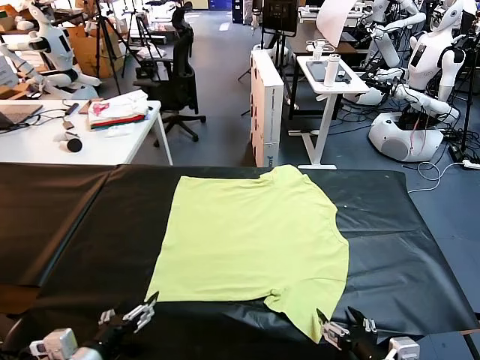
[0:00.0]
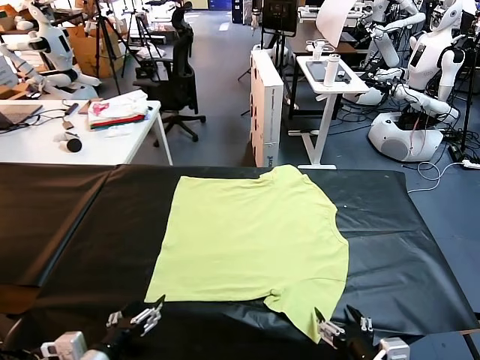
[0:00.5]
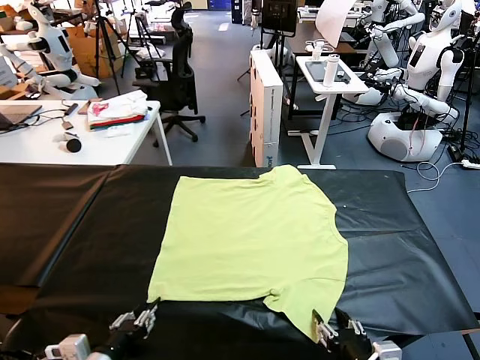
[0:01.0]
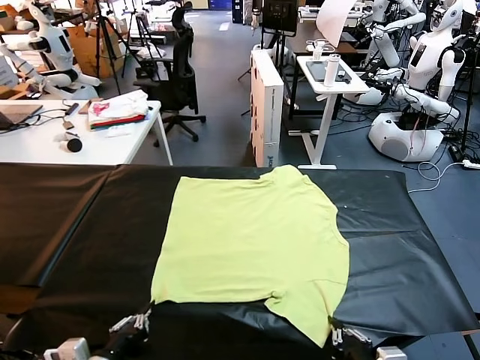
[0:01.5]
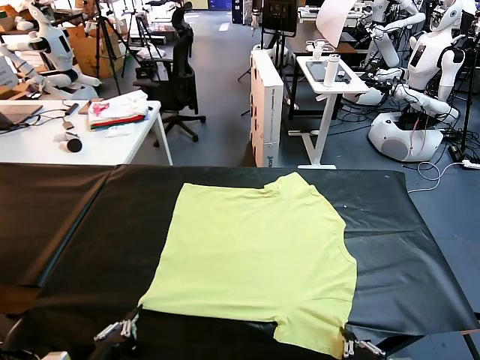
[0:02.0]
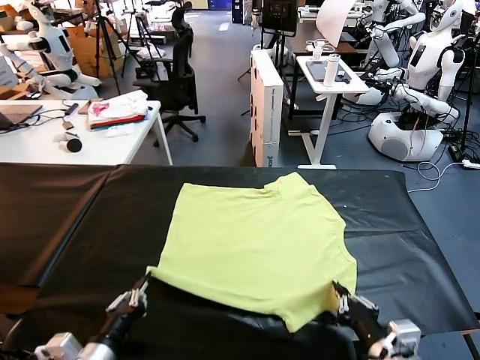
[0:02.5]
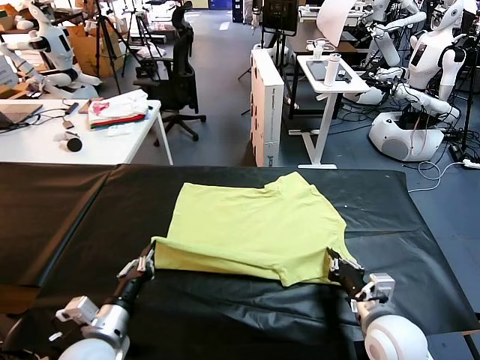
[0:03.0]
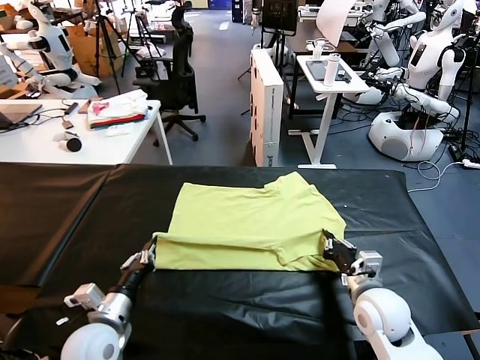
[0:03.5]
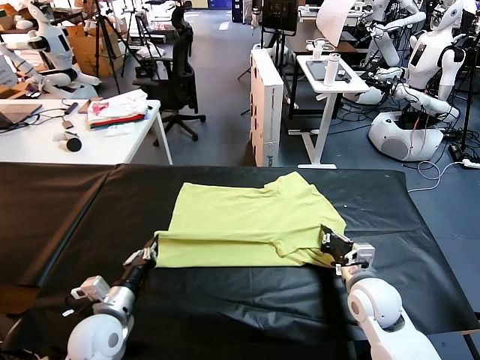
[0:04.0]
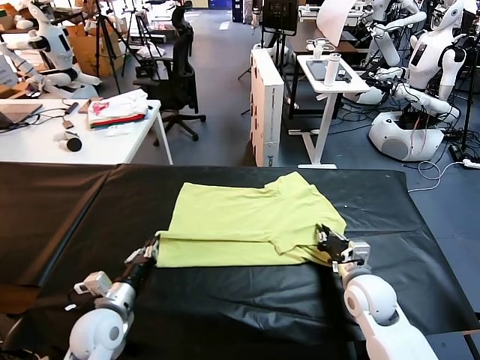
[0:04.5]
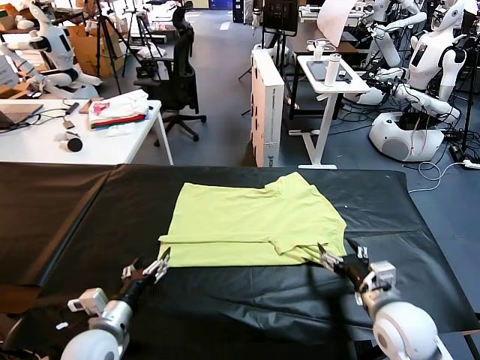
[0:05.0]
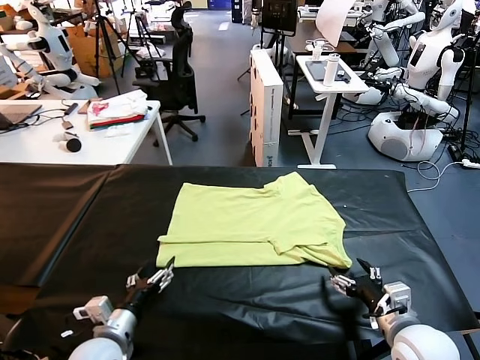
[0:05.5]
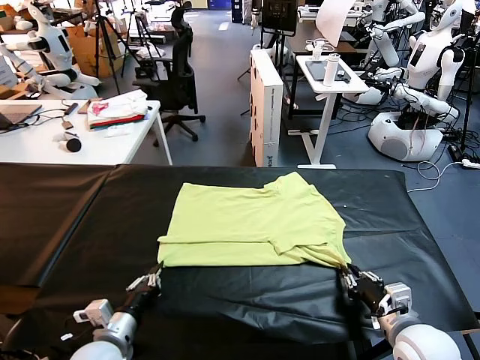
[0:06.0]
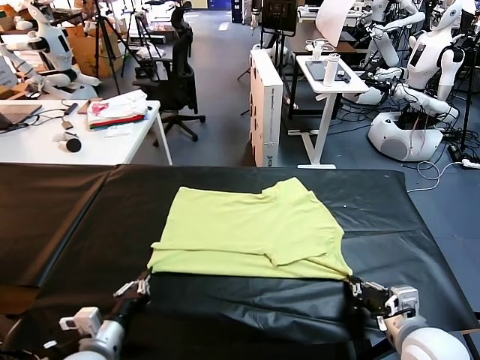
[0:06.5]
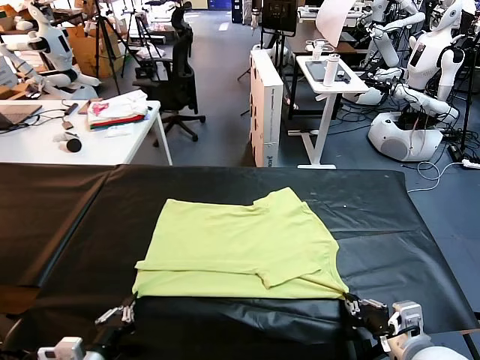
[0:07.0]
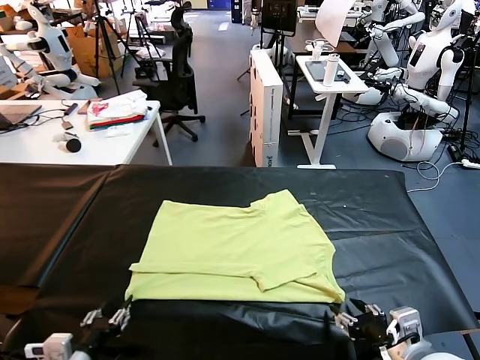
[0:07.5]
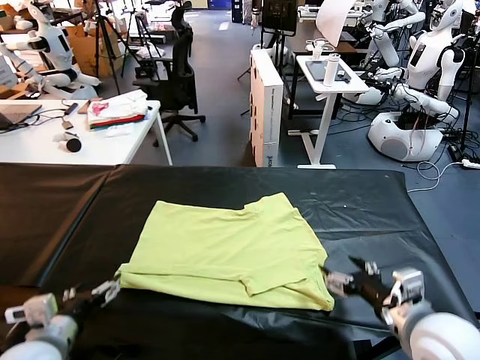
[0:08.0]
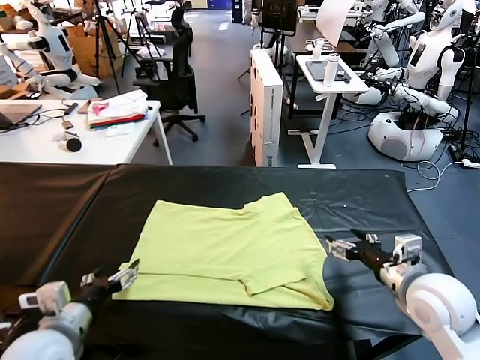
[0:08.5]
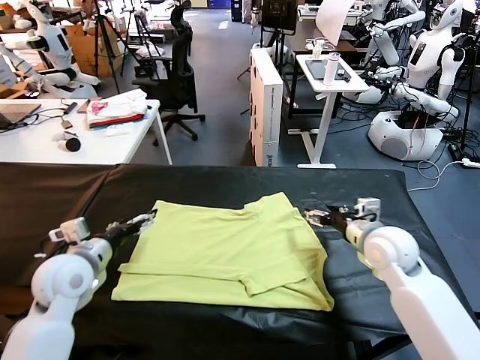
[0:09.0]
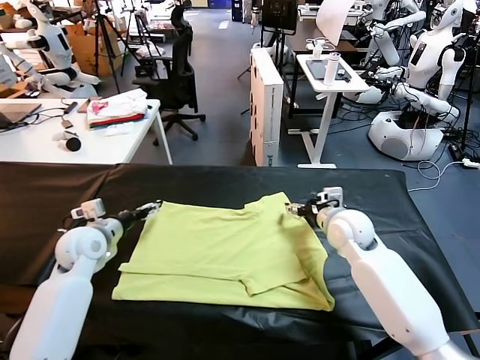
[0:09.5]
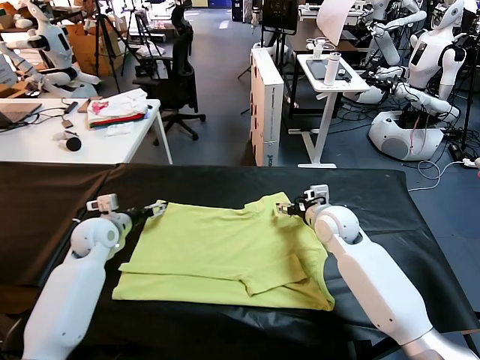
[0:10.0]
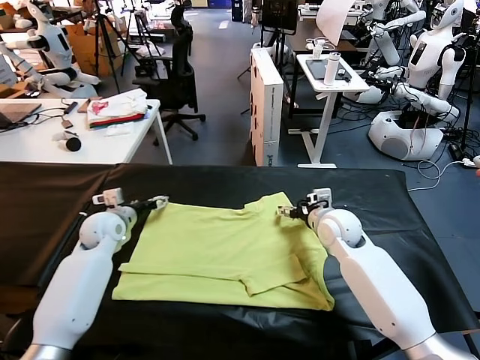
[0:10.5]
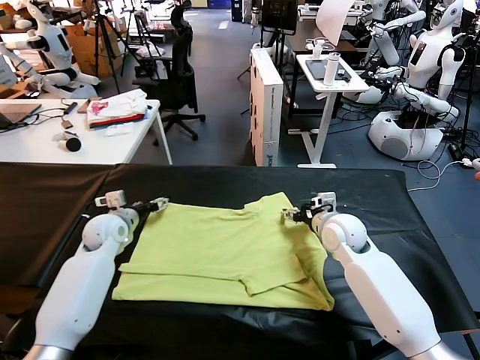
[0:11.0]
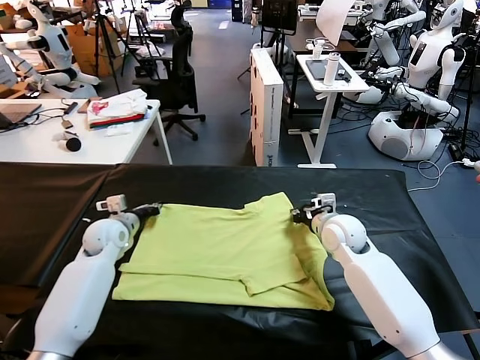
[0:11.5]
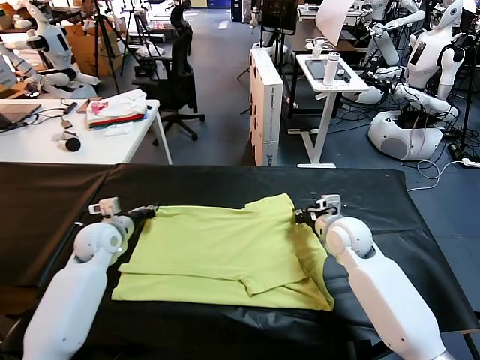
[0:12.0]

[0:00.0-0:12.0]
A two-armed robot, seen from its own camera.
Task of the whole recording: fold and organize the clothes.
Step, 0:00.0 to 0:01.5: use both grippers simultaneously to clamp the lower edge of the clothing fabric.
Step, 0:02.0 to 0:04.5: use both grippers to drag the lower edge of the fabric forward and fold it over the upper edge.
Step, 0:05.0 to 0:07.5: Drag the clothes downward with both gripper.
0:02.0 to 0:04.0: The right gripper is displaced forward by about 20 cm. Meanwhile the left gripper travels forward and downward by some 15 cm.
0:04.0 to 0:06.0: The right gripper shifts some 15 cm backward and to the right, and opens, then closes again; the left gripper heads backward, covering about 5 cm, and opens and closes again.
0:06.0 to 0:08.0: The right gripper goes approximately 10 cm upward, and opens up. The left gripper heads upward and to the left, covering roughly 10 cm, and opens up.
0:08.0 to 0:10.0: The left gripper travels forward by approximately 25 cm. Meanwhile the right gripper moves forward and to the left, approximately 25 cm.
0:10.0 to 0:12.0: The right gripper closes up; the left gripper closes.

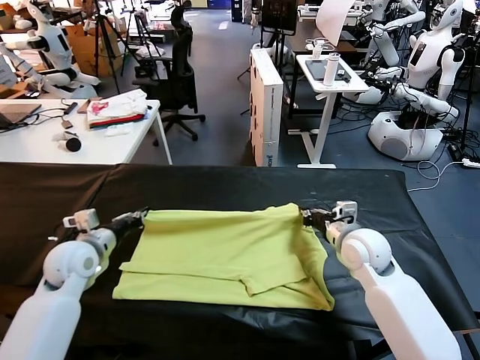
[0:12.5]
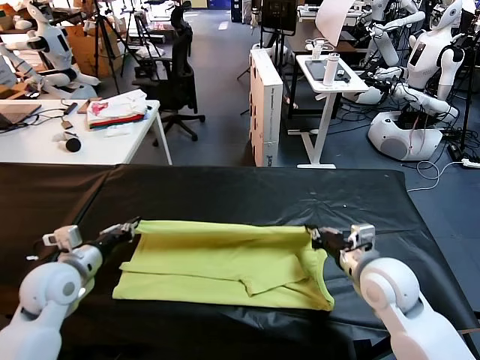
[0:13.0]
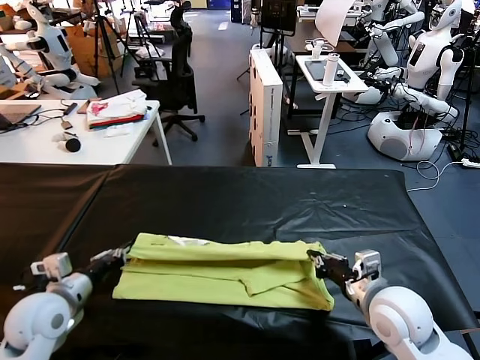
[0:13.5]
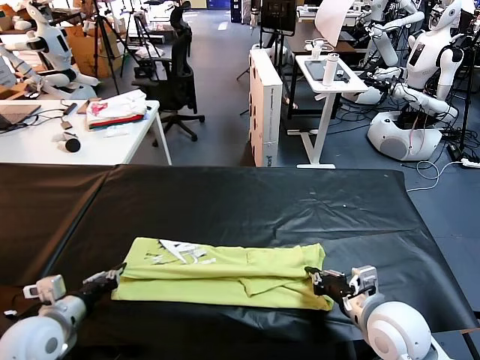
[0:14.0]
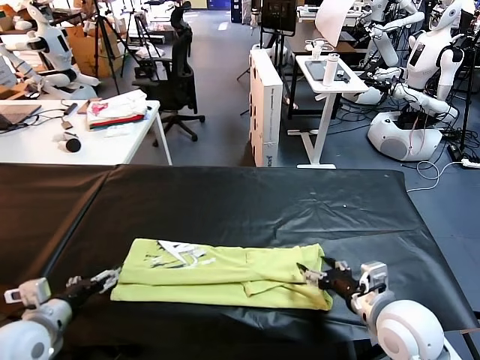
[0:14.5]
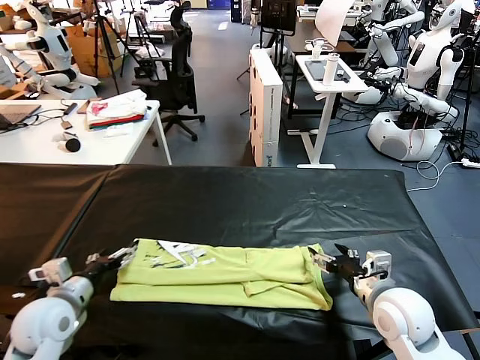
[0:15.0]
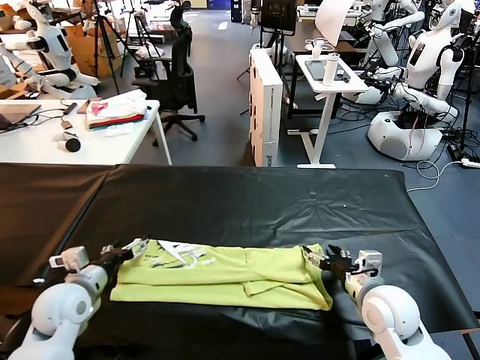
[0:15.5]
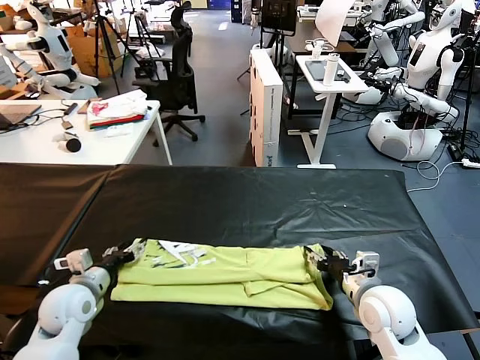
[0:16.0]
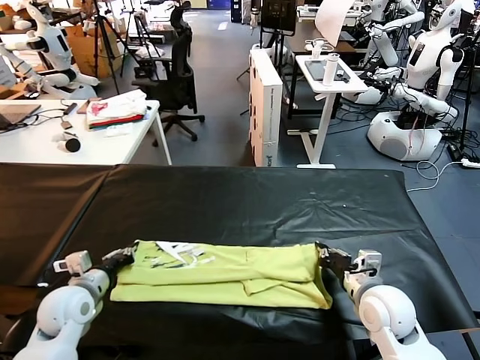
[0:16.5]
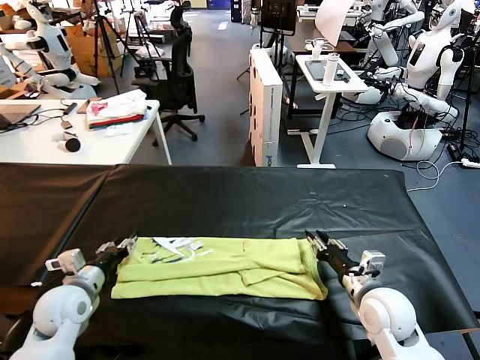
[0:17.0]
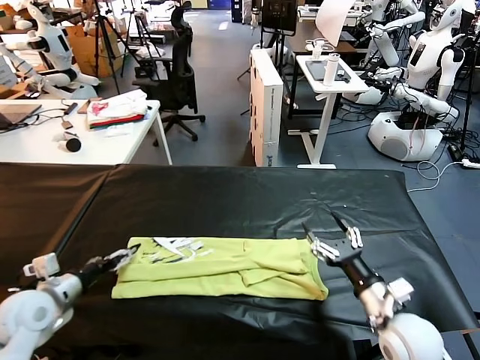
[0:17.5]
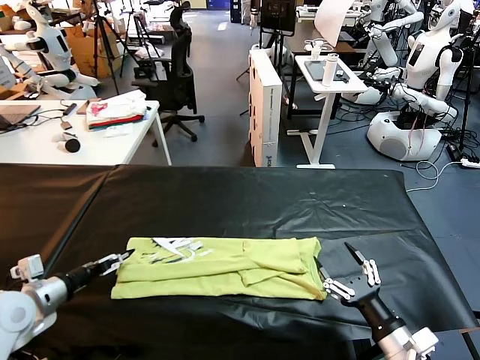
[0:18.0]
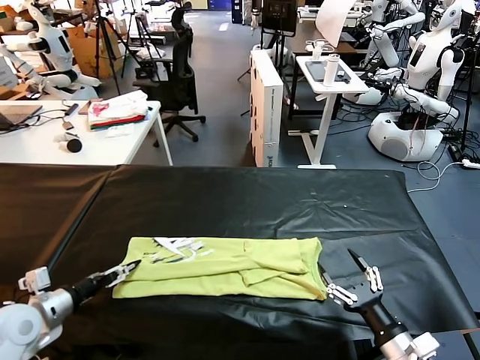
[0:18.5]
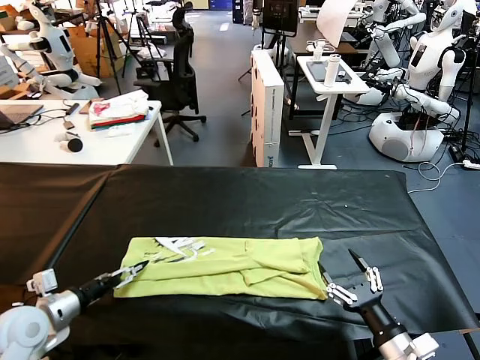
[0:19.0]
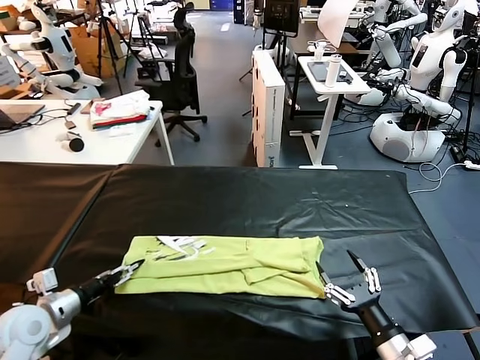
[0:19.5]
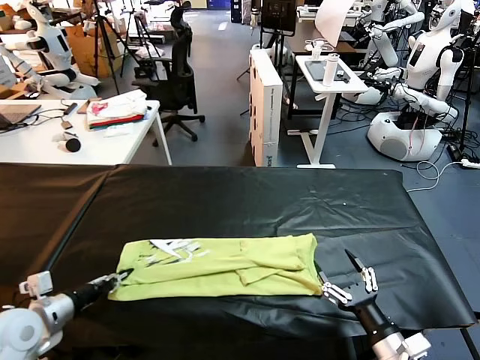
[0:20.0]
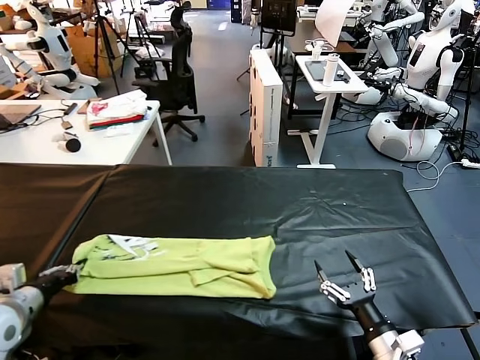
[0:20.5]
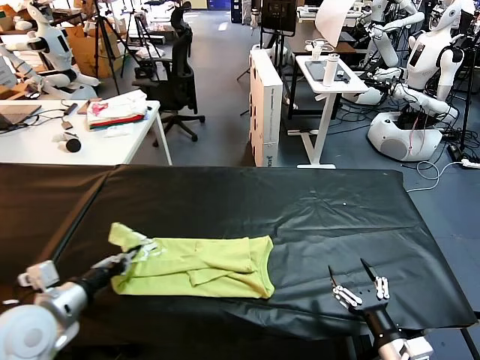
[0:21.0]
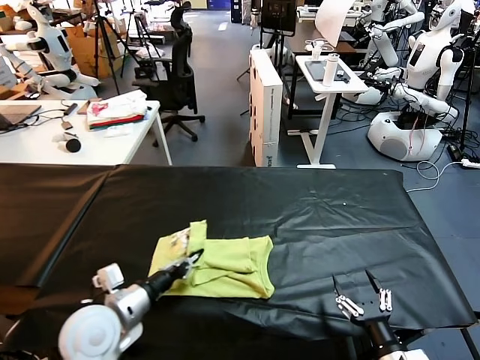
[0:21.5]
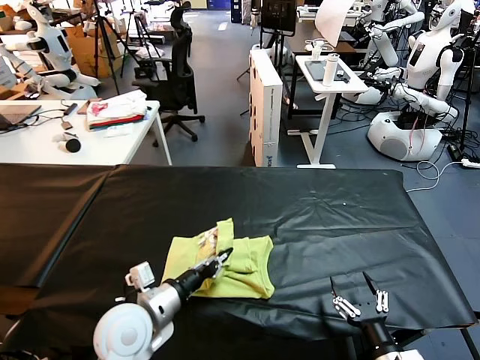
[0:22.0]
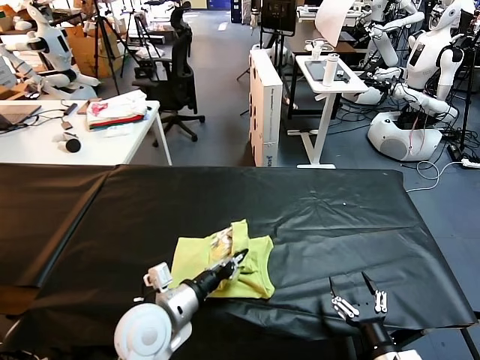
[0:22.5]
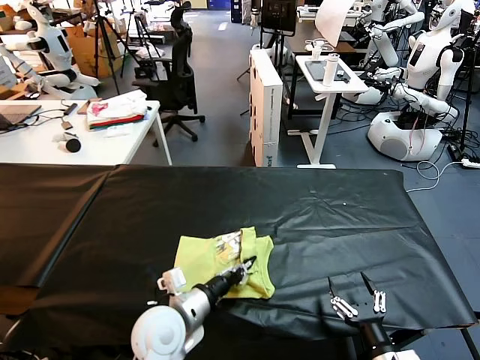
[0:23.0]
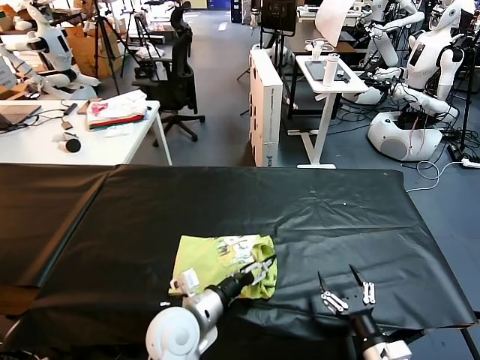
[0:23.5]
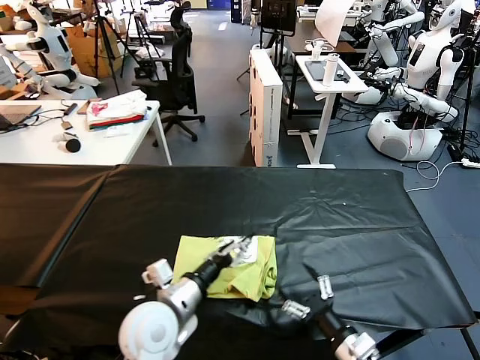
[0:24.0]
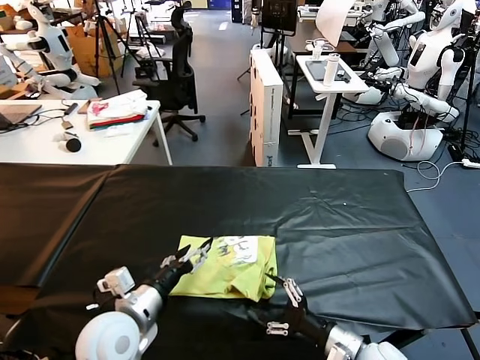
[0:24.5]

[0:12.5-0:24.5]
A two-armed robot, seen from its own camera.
Task of the whole recording: fold and organize the clothes.
Step, 0:12.5 to 0:14.5: use both grippers to drag the upper edge of the fabric backward and fold it over the lower edge.
Step, 0:15.0 to 0:19.5: use the left gripper to clamp the left edge of the fabric.
Step, 0:20.0 to 0:23.5: use the left gripper to drag the left edge of the fabric to the left and folds it over the right edge.
0:12.5 to 0:14.5: The two grippers go about 15 cm backward. The left gripper opens its fingers, while the right gripper opens its fingers.
0:14.5 to 0:16.5: The left gripper travels forward and downward by some 10 cm, and closes its fingers. Meanwhile the right gripper moves downward, some 5 cm, and closes its fingers.
0:16.5 to 0:18.5: The left gripper goes approximately 10 cm to the left and backward, and opens. The right gripper is displaced backward by about 15 cm, and opens up.
0:18.5 to 0:20.5: The left gripper shifts by approximately 5 cm, and closes.
0:20.5 to 0:22.5: The left gripper is displaced to the right by roughly 25 cm.
0:22.5 to 0:24.5: The left gripper moves roughly 5 cm, and opens its fingers; the right gripper goes about 10 cm forward.

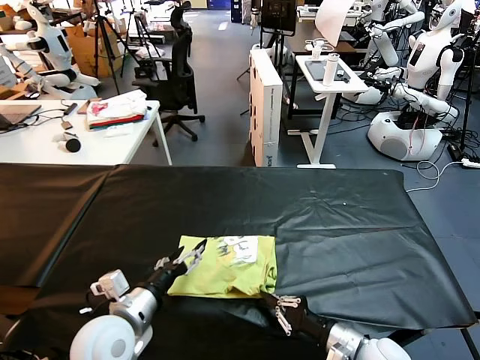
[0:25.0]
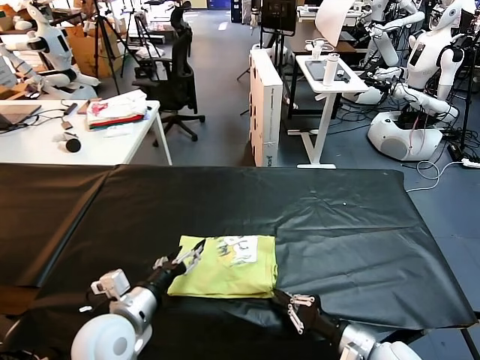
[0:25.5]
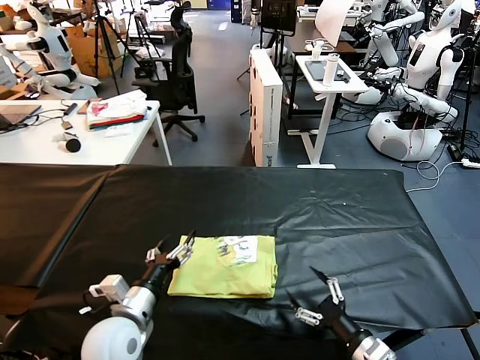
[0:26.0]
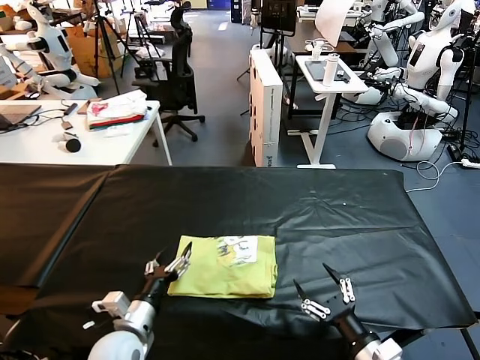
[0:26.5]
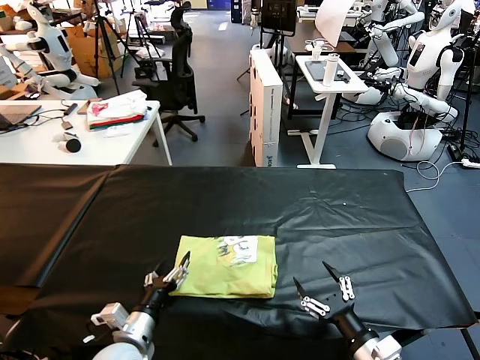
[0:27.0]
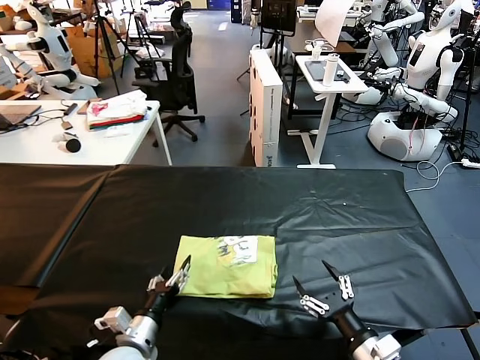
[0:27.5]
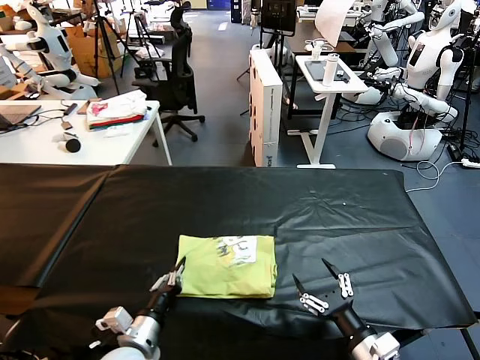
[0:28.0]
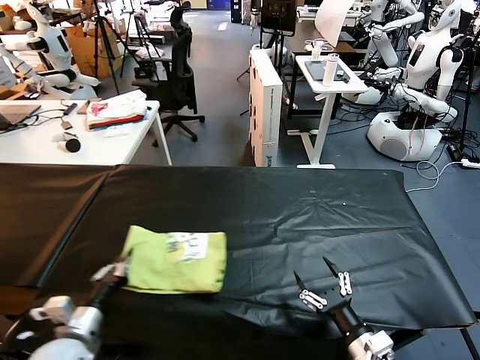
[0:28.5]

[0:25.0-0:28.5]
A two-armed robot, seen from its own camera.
Task of the whole recording: fold and organize the clothes.
0:25.0 to 0:27.0: The right gripper goes approximately 5 cm backward, and opens, while the left gripper heads downward, covering about 10 cm.
0:27.0 to 0:28.5: The left gripper moves to the left, roughly 10 cm, and closes.
